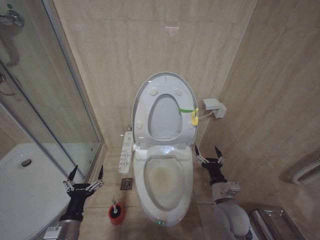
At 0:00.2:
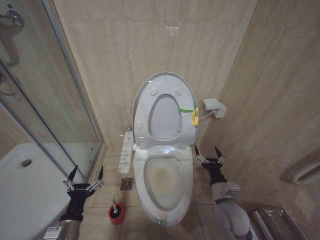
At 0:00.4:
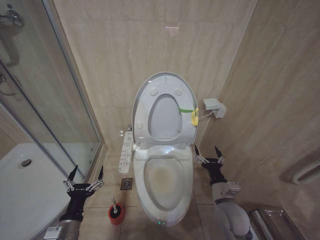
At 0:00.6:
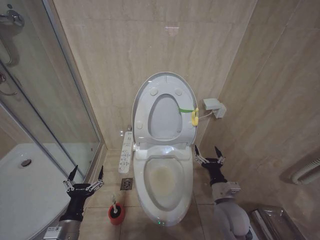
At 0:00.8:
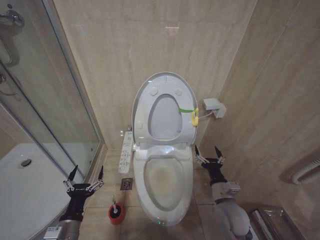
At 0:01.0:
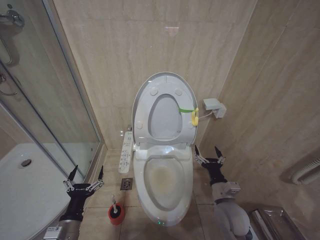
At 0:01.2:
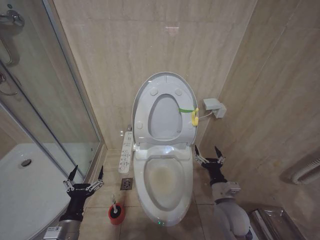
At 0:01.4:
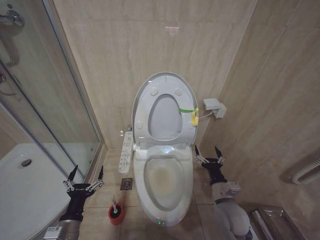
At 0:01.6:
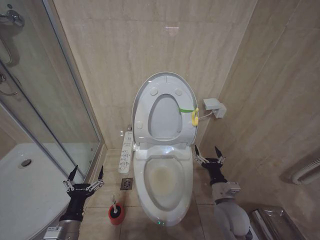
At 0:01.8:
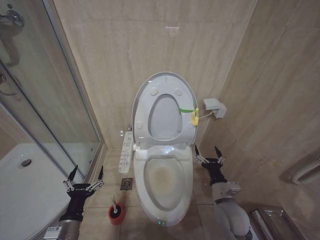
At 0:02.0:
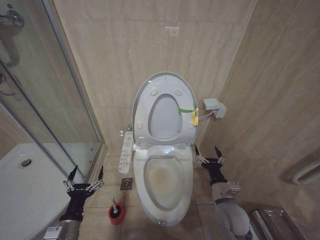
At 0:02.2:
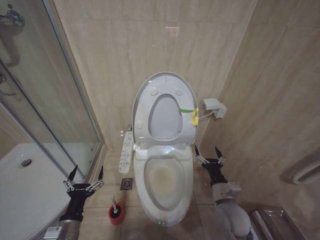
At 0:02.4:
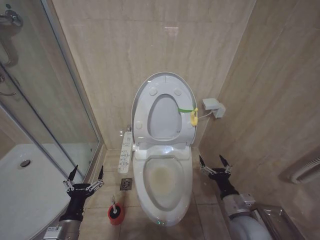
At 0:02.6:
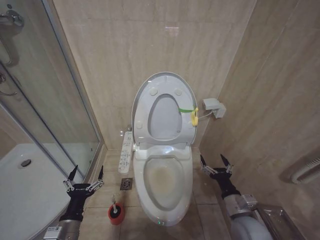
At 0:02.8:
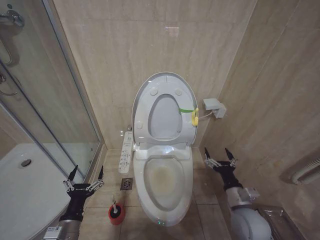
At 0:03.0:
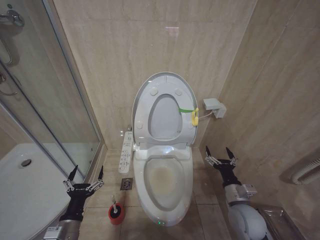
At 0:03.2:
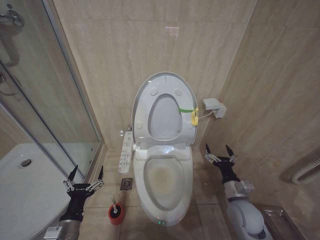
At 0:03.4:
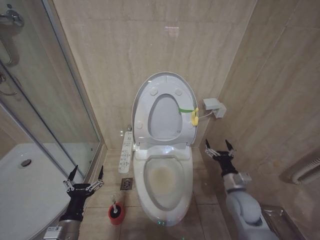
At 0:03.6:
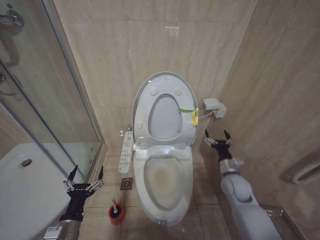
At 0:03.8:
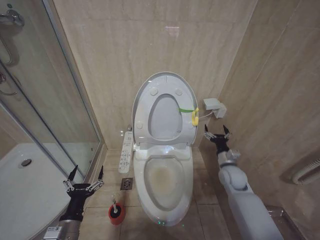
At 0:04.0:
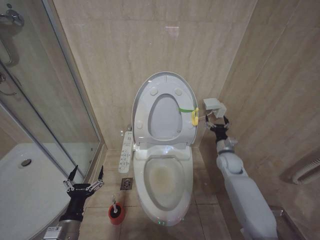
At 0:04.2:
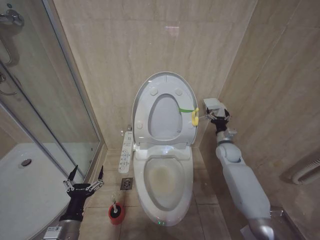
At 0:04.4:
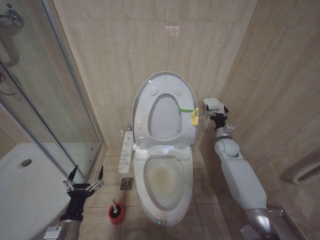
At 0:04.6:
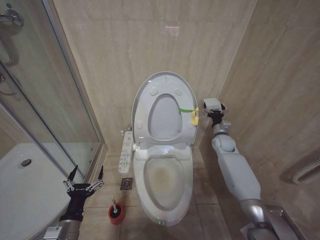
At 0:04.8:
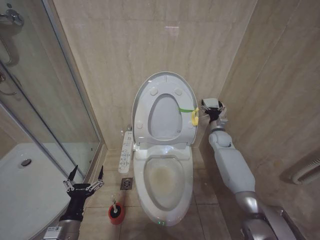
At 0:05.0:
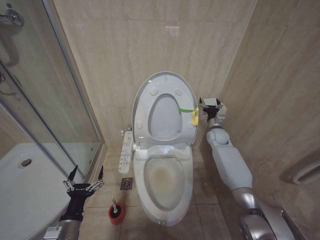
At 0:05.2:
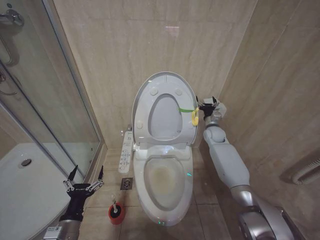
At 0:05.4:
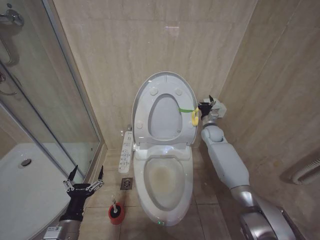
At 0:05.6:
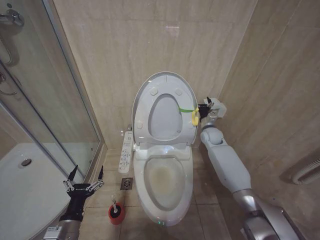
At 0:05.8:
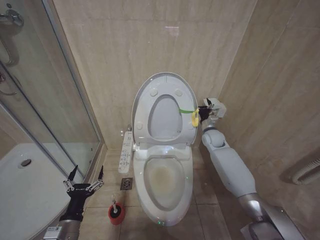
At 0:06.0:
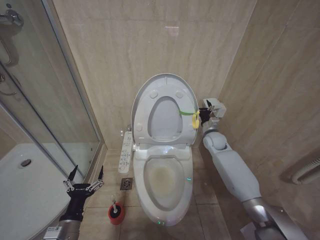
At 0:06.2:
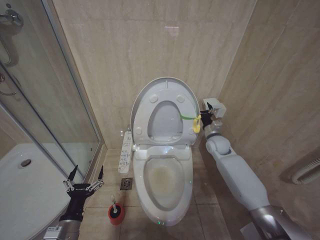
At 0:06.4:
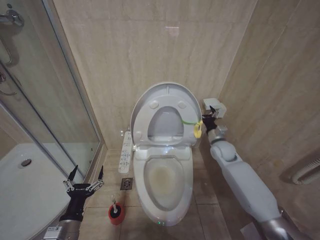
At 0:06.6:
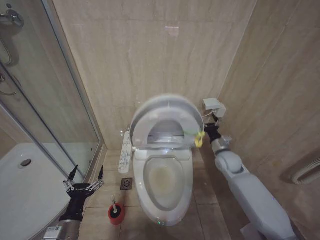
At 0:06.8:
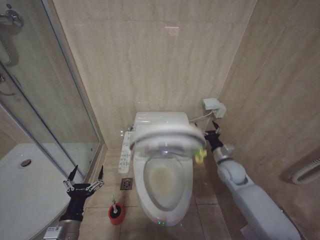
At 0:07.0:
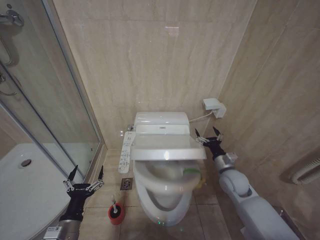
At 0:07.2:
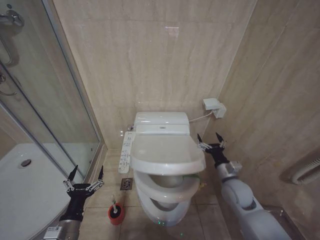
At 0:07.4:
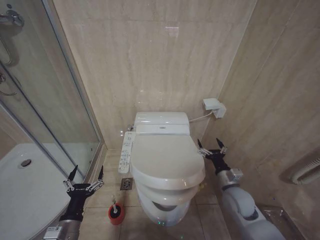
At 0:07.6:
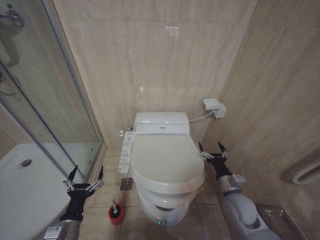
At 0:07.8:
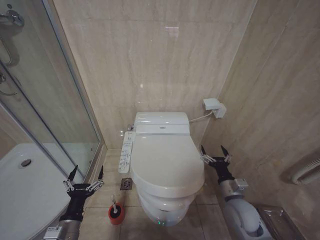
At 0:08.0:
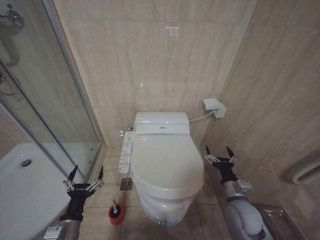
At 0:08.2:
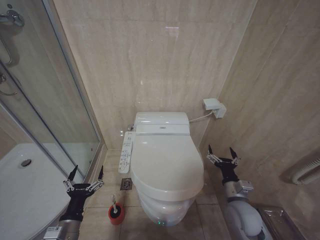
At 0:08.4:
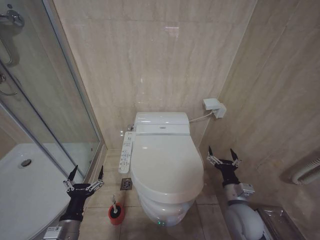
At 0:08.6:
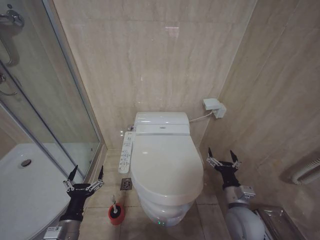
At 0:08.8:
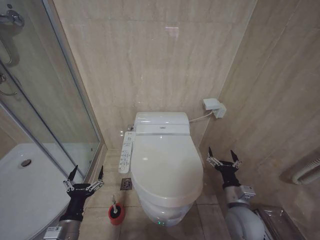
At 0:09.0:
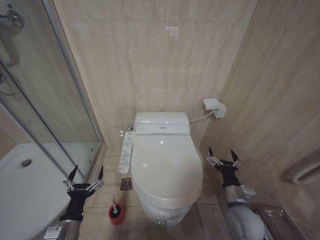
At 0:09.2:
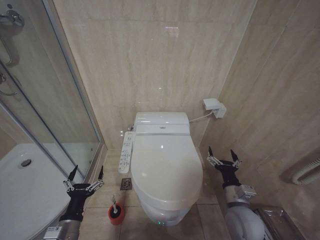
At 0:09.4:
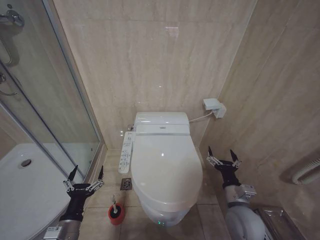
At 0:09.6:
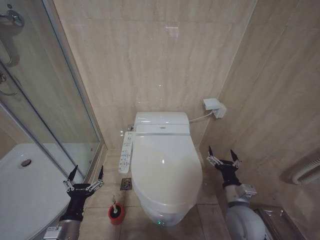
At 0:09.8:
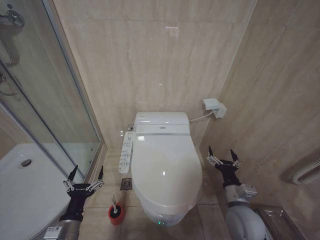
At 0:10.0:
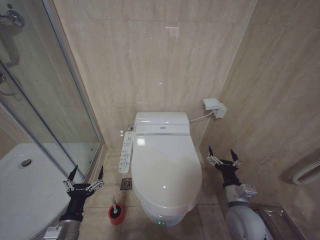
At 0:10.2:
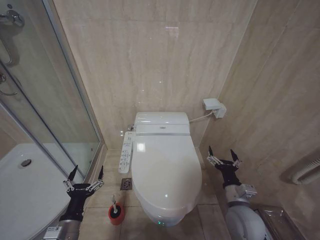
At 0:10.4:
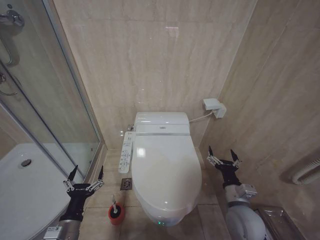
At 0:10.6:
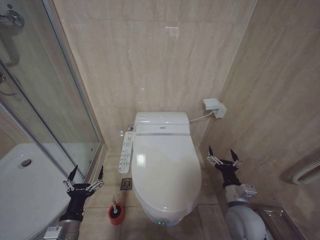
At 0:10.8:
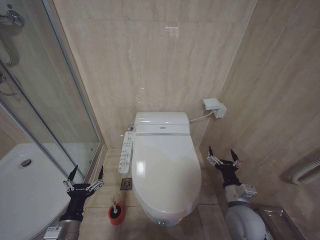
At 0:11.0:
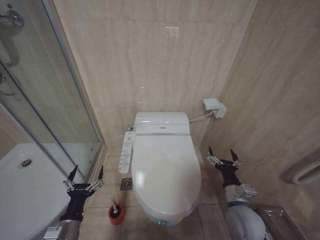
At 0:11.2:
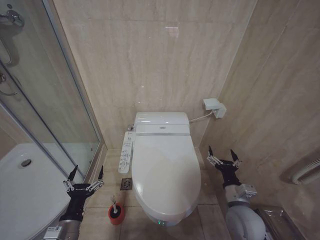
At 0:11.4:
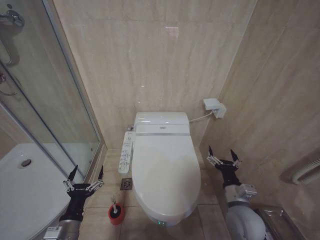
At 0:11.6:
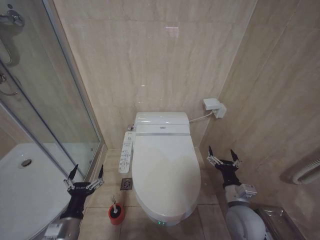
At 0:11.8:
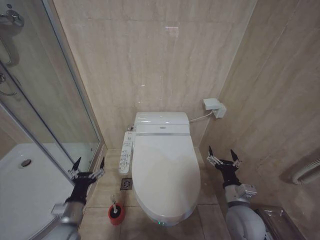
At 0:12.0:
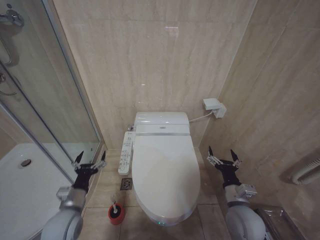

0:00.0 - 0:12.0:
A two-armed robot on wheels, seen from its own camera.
Task of the whole recording: Open the toilet lid, clean the toilet bowl with a toilet brush, close the toilet lid, and flush.
0:00.0 - 0:01.6: The two grippers keep their place.
0:01.6 - 0:03.0: The grippers move only a little.
0:03.0 - 0:04.4: The right gripper moves forward, some 25 cm.
0:04.4 - 0:06.0: The right gripper shifts roughly 5 cm to the left.
0:06.0 - 0:07.6: The right gripper heads backward, covering some 25 cm.
0:07.6 - 0:09.0: The right gripper goes roughly 5 cm backward.
0:09.0 - 0:10.4: Both grippers stay about where they are.
0:10.4 - 0:12.0: The left gripper heads forward, covering approximately 5 cm.

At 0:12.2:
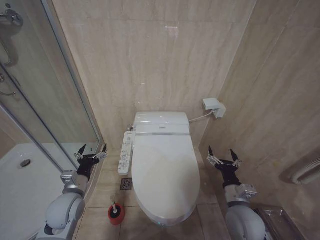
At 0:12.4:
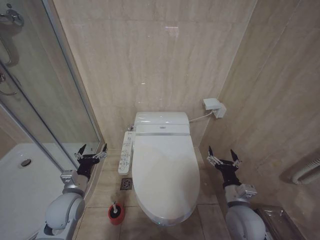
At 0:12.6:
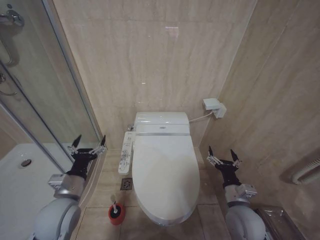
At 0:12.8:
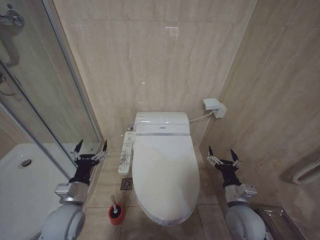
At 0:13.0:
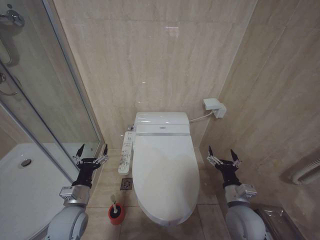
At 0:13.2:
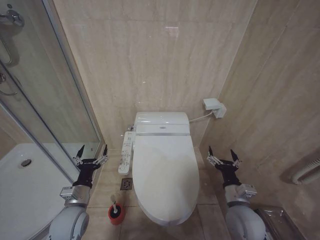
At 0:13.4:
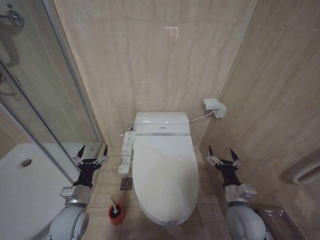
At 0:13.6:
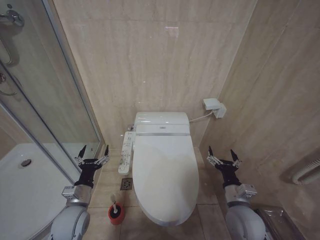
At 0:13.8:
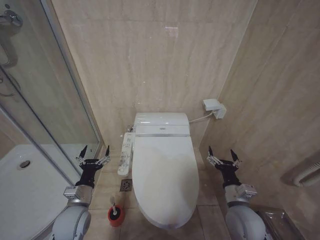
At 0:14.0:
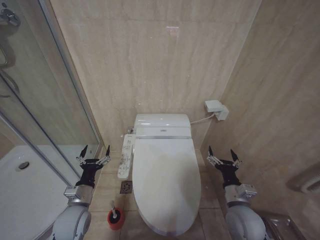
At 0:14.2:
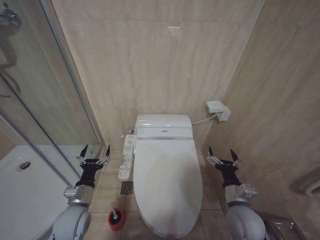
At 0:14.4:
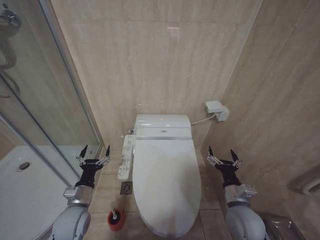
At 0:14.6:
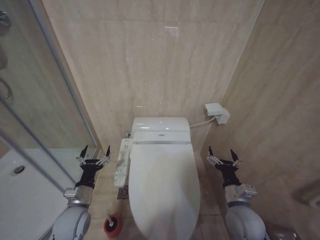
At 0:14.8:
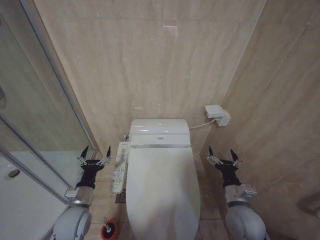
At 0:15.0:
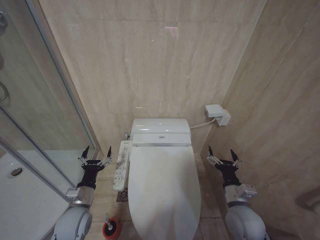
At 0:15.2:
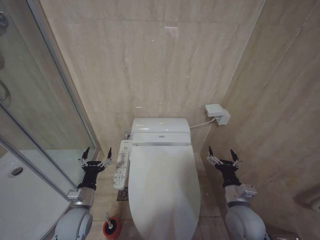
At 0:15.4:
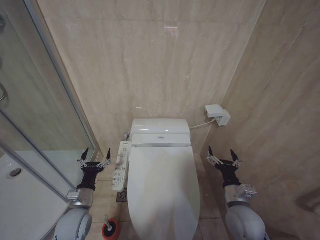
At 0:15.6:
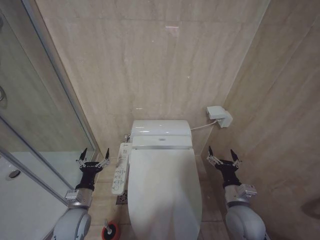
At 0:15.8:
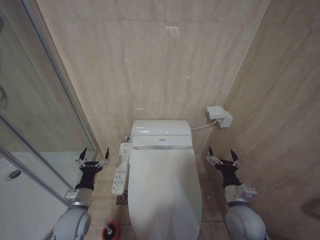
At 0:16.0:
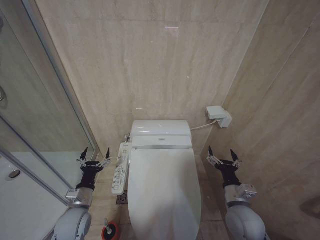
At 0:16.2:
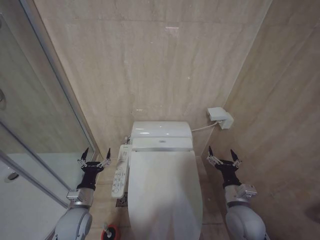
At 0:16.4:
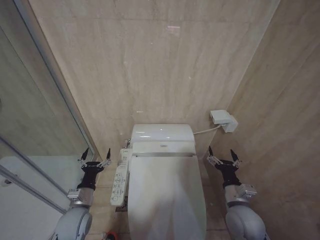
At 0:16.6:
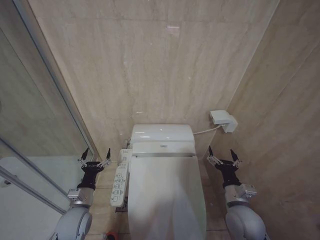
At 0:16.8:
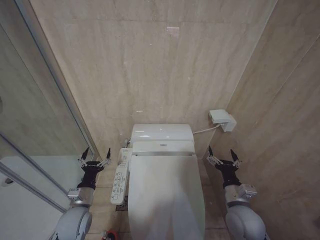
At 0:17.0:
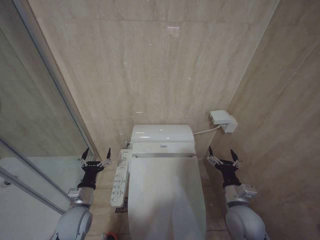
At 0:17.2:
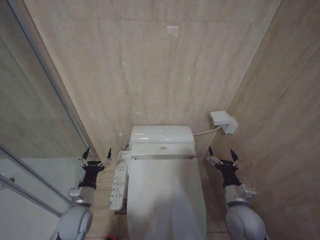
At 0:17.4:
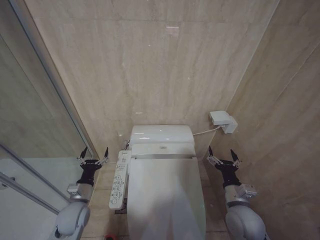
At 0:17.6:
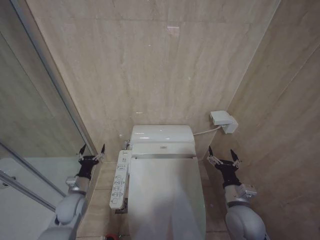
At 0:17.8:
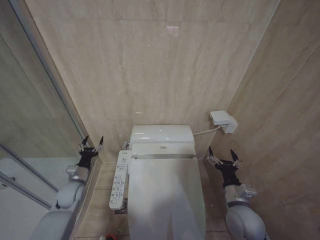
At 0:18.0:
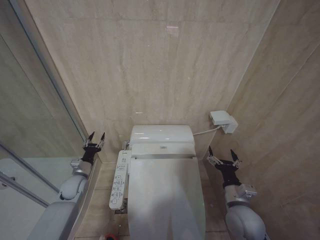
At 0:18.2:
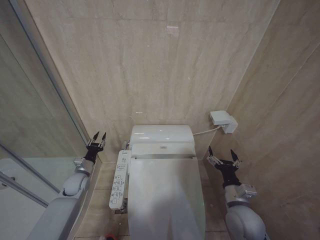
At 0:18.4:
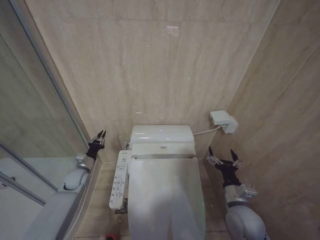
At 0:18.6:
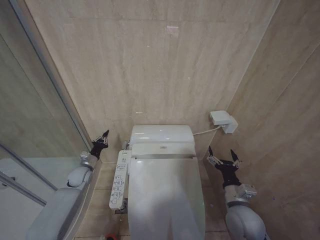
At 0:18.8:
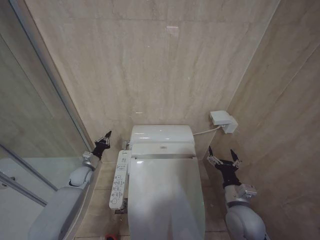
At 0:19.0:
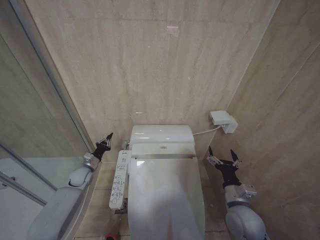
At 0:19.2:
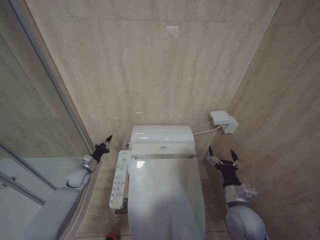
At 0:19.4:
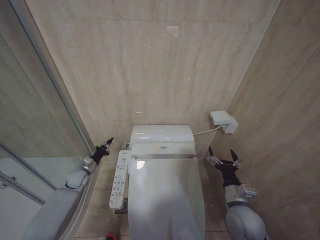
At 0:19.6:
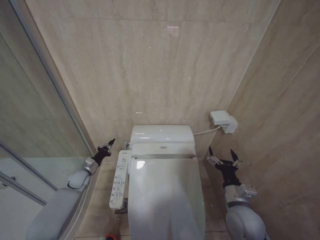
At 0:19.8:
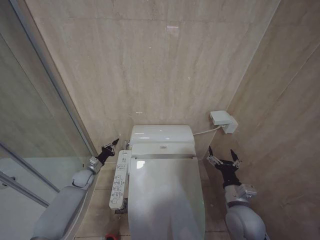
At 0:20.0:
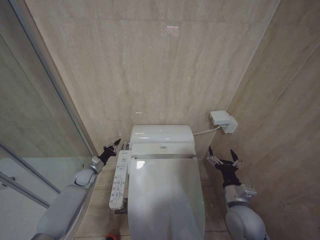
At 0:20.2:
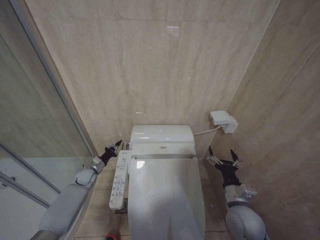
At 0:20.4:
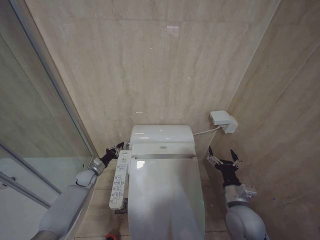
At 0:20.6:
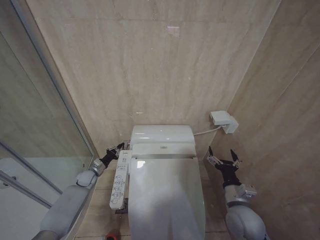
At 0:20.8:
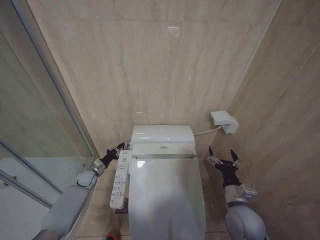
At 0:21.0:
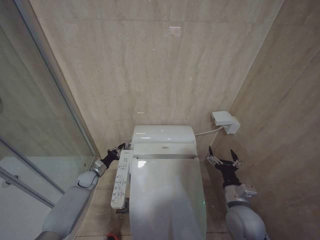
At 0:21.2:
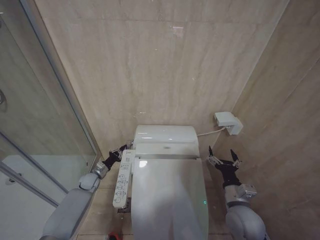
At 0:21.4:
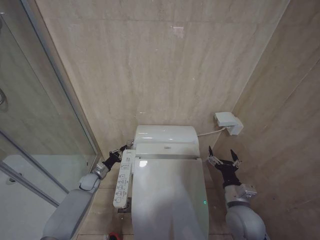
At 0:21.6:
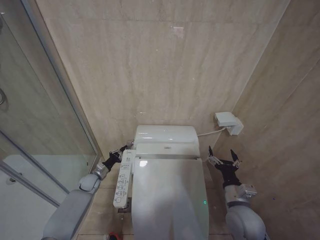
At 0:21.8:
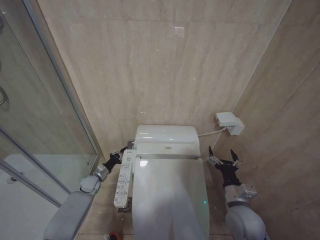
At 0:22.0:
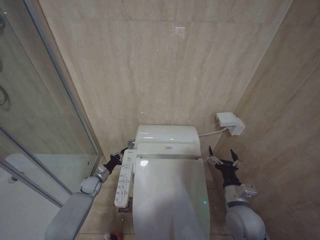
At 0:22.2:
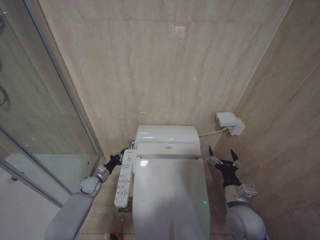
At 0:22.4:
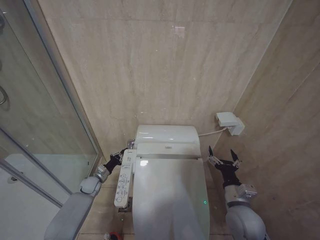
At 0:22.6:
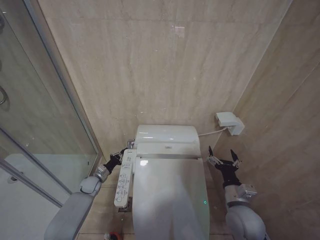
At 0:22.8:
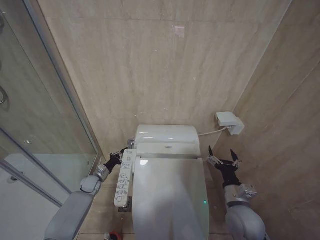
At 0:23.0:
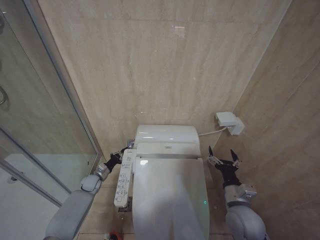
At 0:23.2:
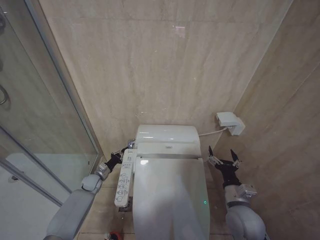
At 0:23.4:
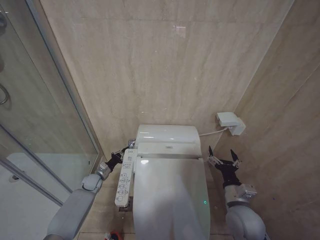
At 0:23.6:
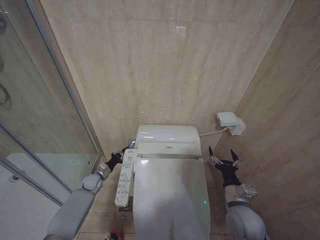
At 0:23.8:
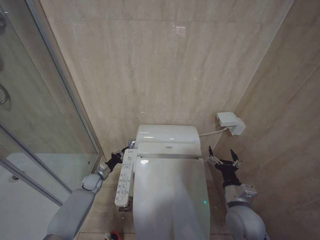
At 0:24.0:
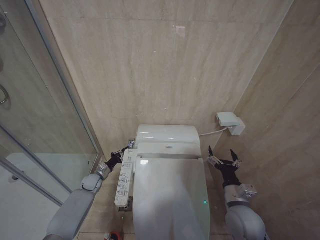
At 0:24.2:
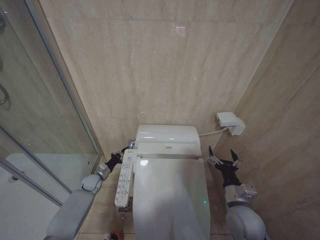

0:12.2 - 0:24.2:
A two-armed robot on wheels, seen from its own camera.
Task of the whole recording: Open the toilet lid, clean the toilet bowl with a toilet brush, close the toilet lid, and flush.
0:13.8 - 0:15.2: Both grippers stay about where they are.
0:15.2 - 0:16.6: Neither gripper changes place.
0:16.6 - 0:18.2: The left gripper travels forward and to the left by approximately 15 cm, and closes.
0:18.2 - 0:19.8: The left gripper shifts approximately 5 cm forward, and closes its fingers.
0:19.8 - 0:21.2: There are only small adjustments of the grippers.
0:21.2 - 0:22.6: The grippers move only a little.
